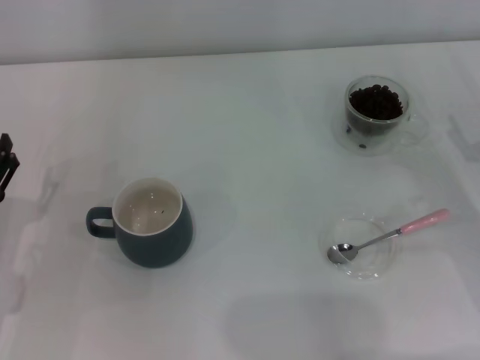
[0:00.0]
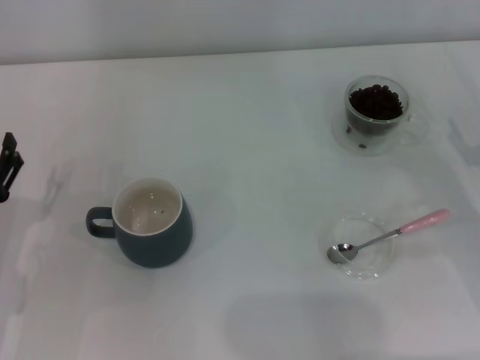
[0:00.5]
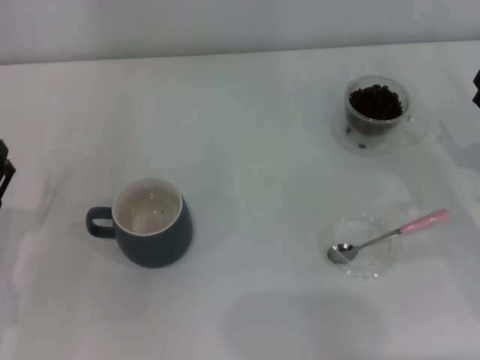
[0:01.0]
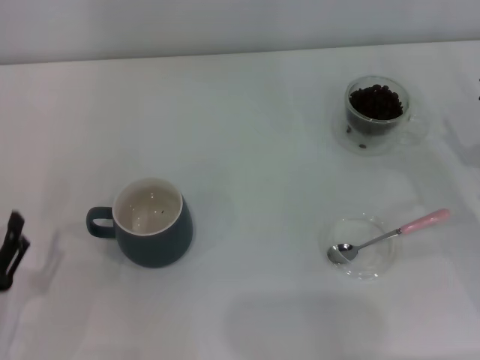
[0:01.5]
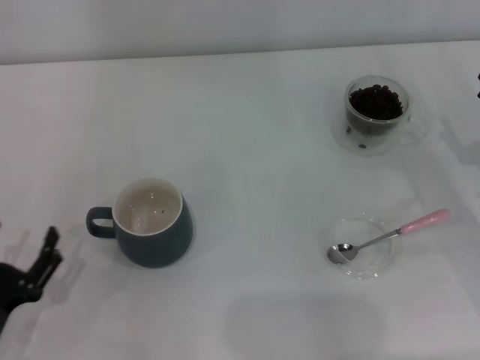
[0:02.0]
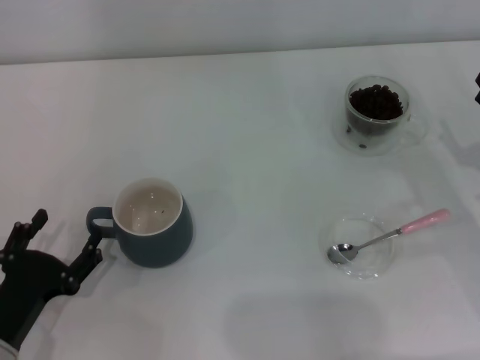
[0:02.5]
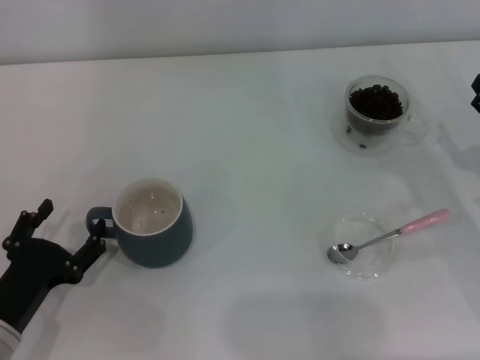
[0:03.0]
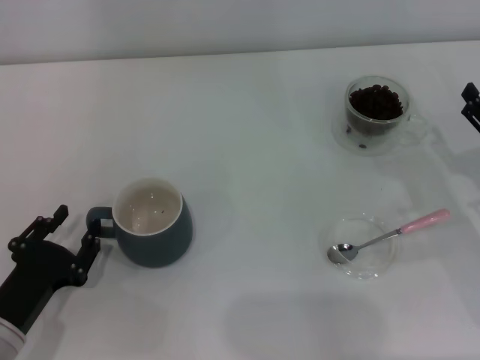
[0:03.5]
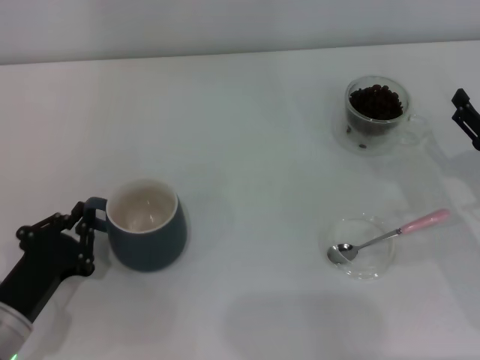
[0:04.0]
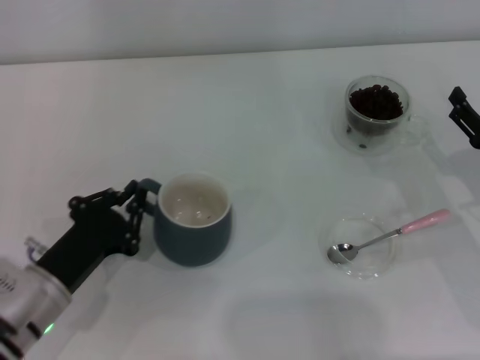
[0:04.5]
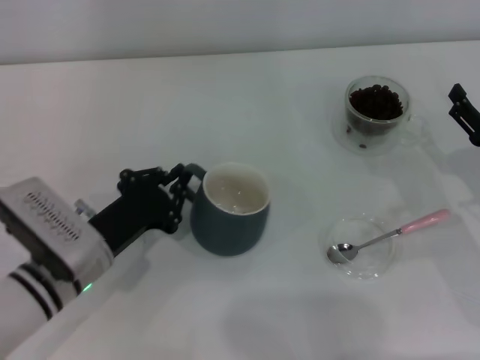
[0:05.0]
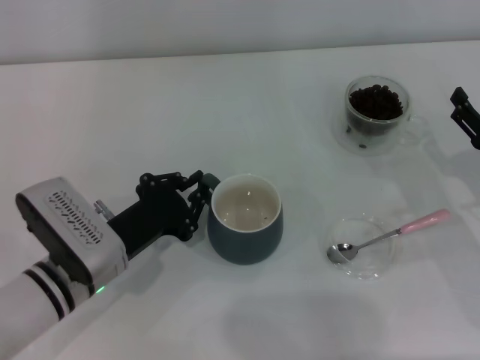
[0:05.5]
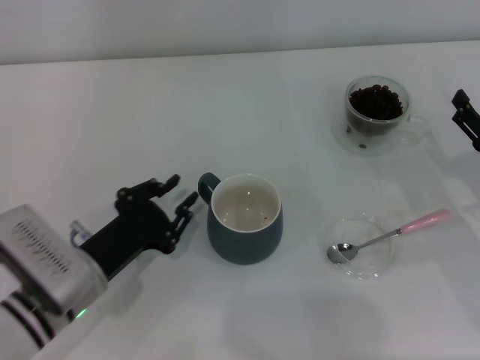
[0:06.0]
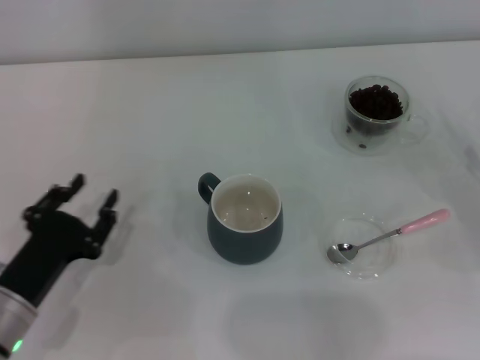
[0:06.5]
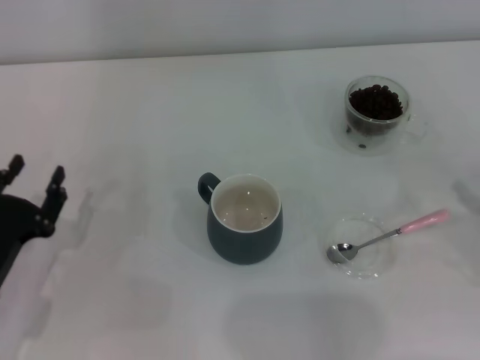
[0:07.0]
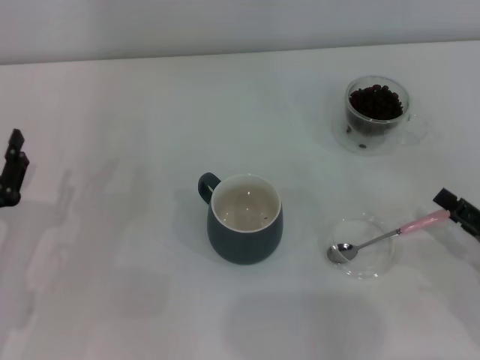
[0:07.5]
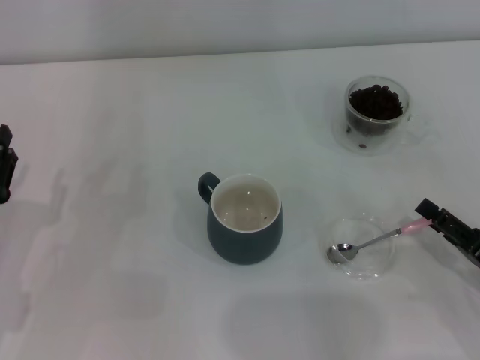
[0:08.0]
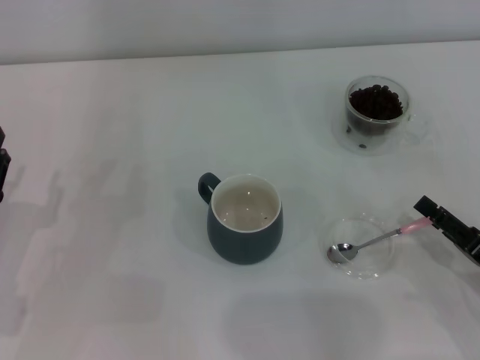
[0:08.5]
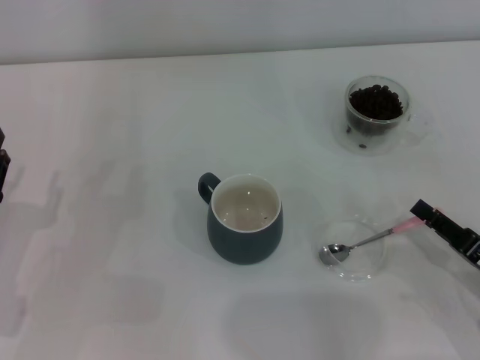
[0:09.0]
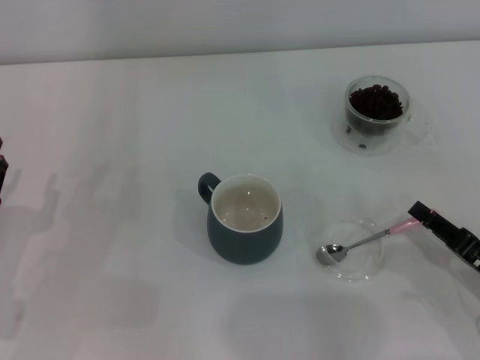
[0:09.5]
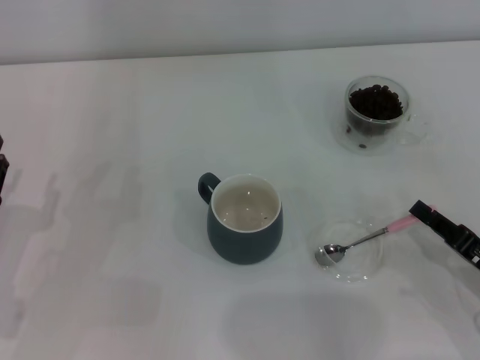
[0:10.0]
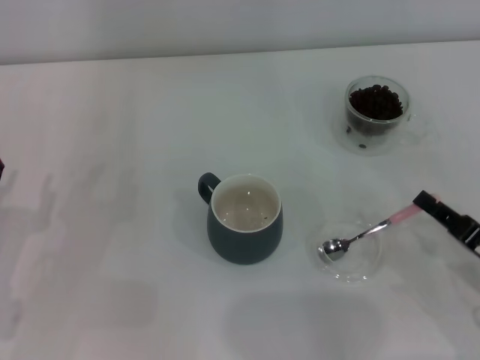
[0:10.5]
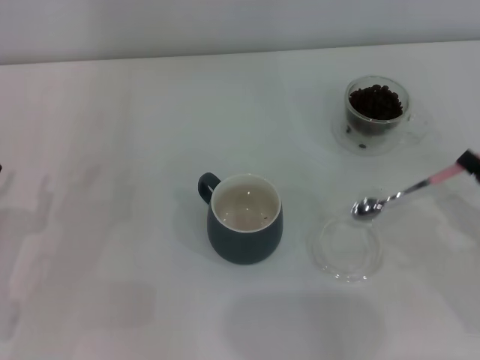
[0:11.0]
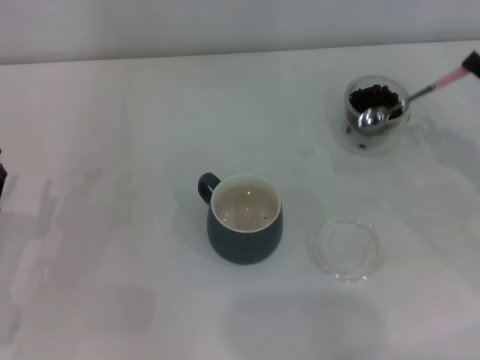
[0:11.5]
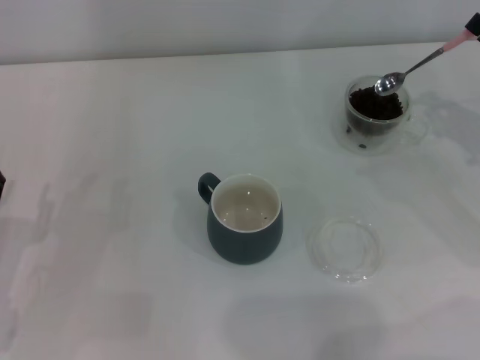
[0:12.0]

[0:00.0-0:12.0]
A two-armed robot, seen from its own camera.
Task of the whole recording: Use a pink spoon to take out the coffee beans from the glass and pour them into the gray cup.
Step, 0:00.0 to 0:05.5: Move the cup to the center of view with the left gripper.
Step, 0:06.5 to 0:10.5: Pick up the spoon with the right gripper.
0:00.0 to 0:02.0: The left gripper shifts approximately 10 cm backward.
0:02.0 to 0:04.0: The left gripper is displaced forward by approximately 5 cm, and closes.
0:04.0 to 0:06.0: The left gripper shifts about 5 cm to the right.
0:06.0 to 0:08.0: The right gripper is displaced backward by roughly 10 cm. The left gripper goes some 10 cm to the left.
0:08.0 to 0:10.0: The right gripper closes.
0:10.0 to 0:12.0: The right gripper is displaced forward, upward and to the right by approximately 20 cm.

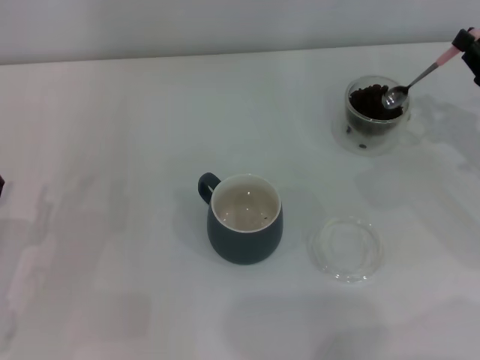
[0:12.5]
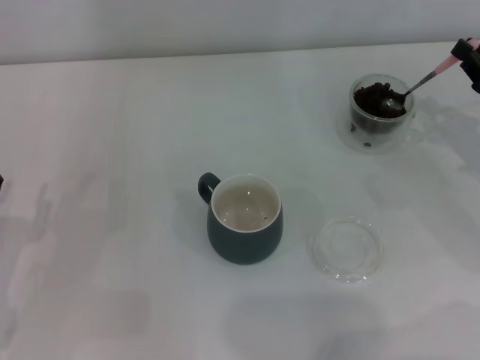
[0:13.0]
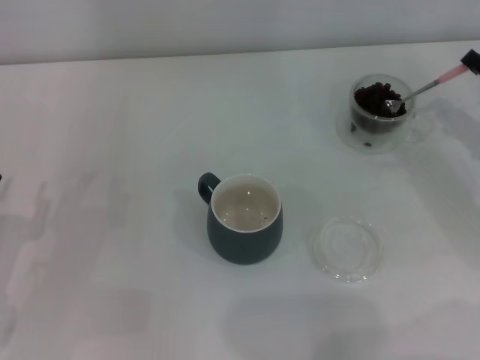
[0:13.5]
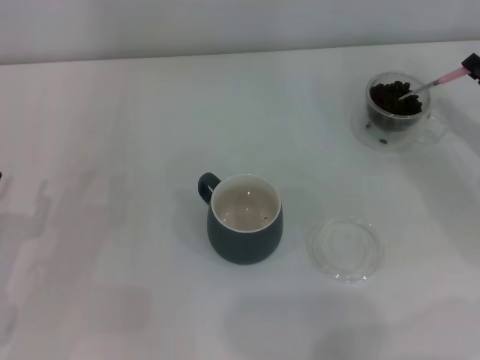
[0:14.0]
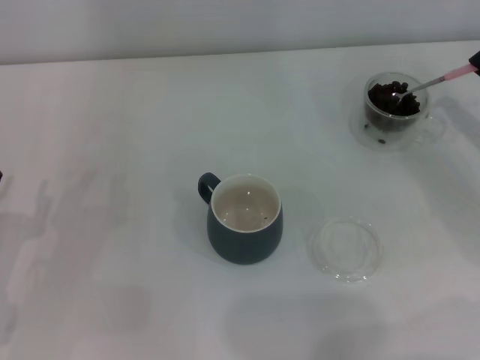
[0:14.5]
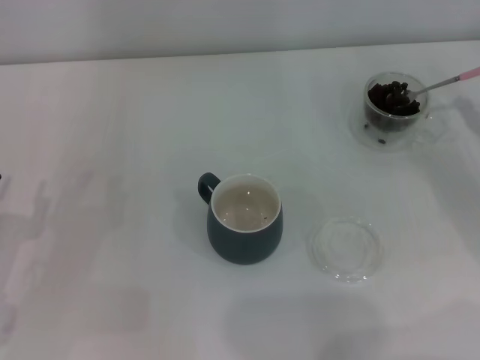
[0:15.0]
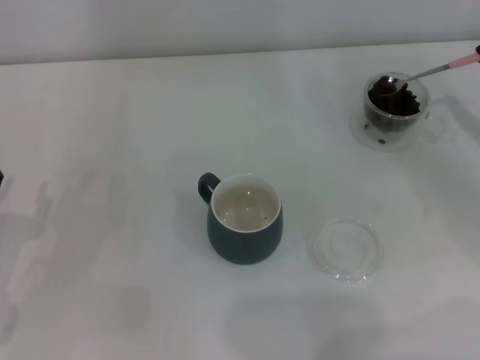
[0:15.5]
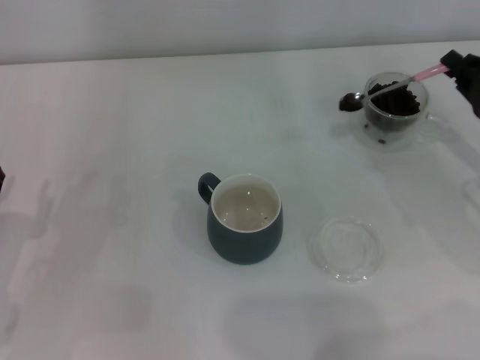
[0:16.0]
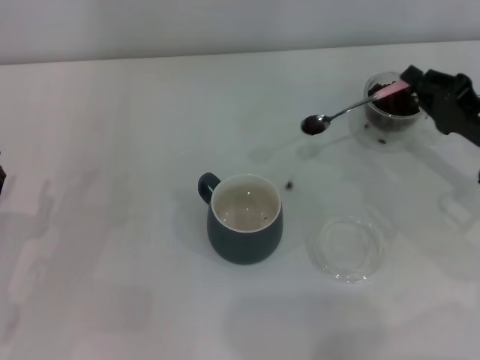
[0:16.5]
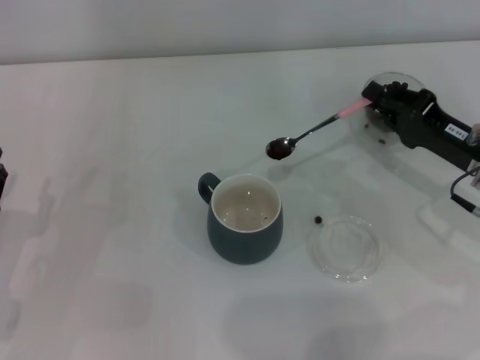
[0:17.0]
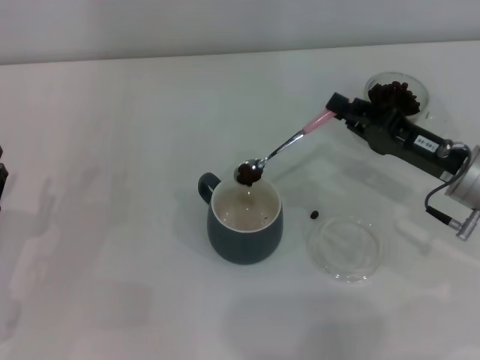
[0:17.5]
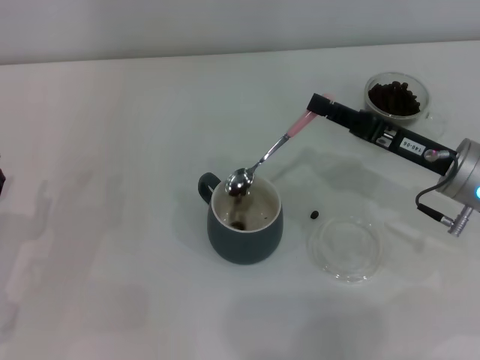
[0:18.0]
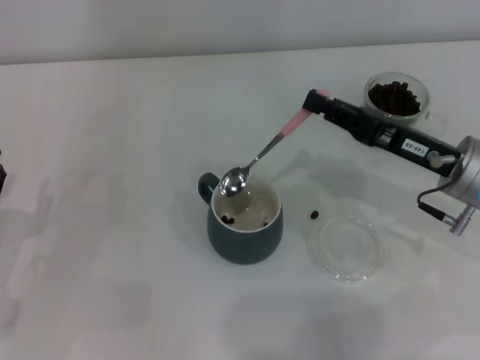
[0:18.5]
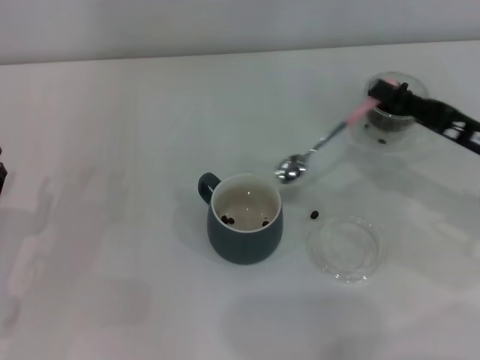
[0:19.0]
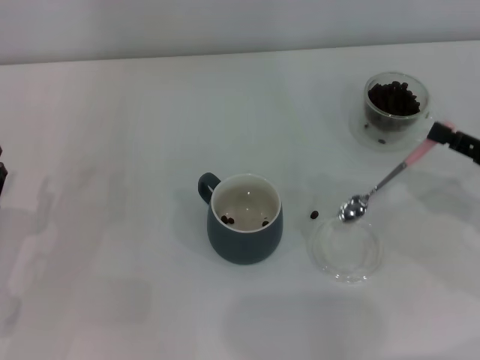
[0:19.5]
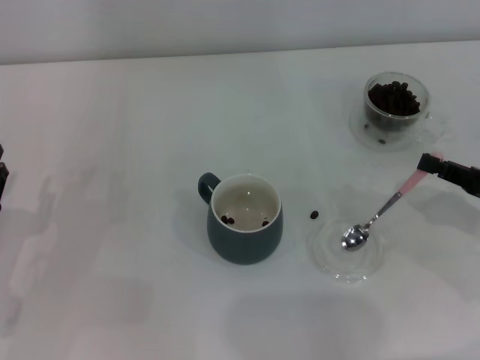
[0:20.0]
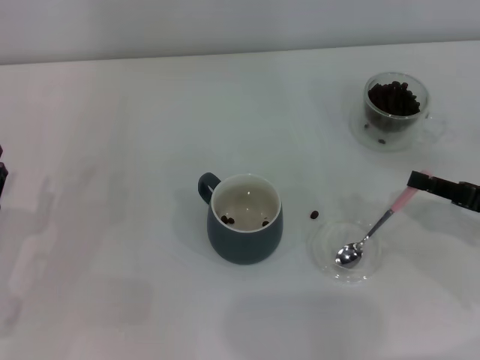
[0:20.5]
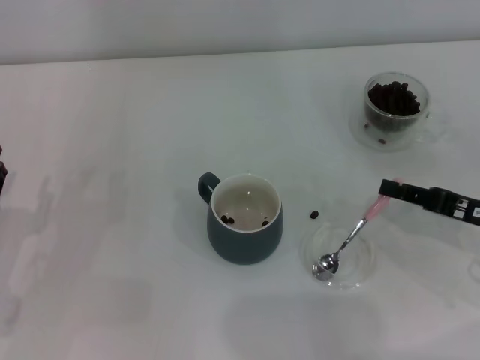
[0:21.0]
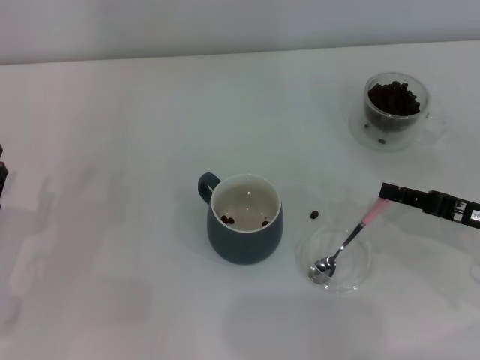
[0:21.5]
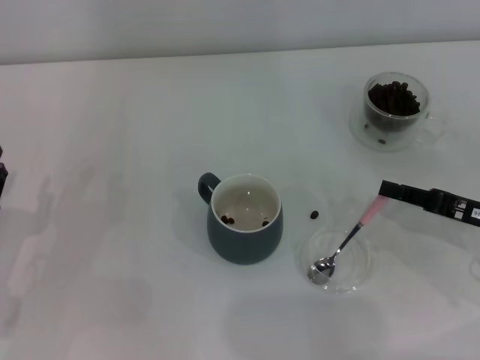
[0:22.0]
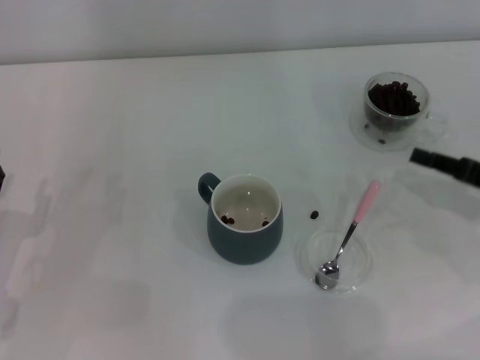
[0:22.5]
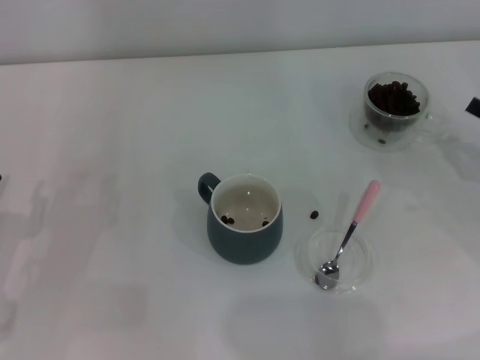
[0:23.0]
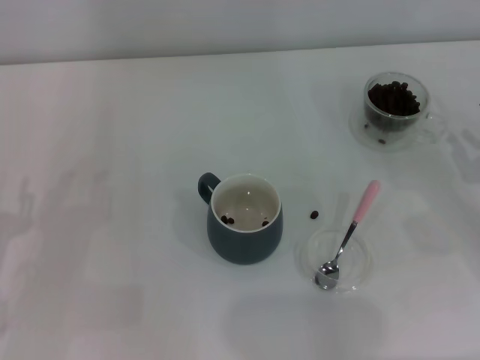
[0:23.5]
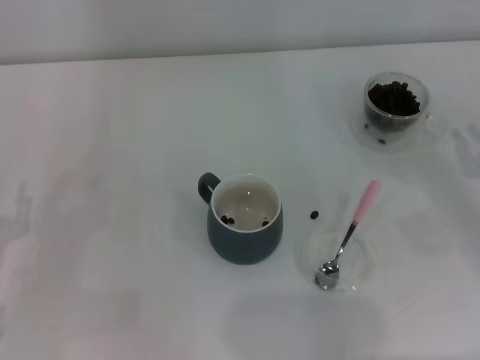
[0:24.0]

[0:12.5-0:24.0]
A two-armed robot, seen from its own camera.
Task of the whole recording: Use a pink spoon to take out the coffee beans from the glass and pour them into the gray cup.
Step, 0:12.5 to 0:18.0: Scoop a spoonful of beans into the cup with the right gripper.
Step, 0:18.5 to 0:22.0: Place the spoon back in its original place with the right gripper.
0:14.5 to 0:16.5: The right gripper travels to the left by some 5 cm.
0:16.5 to 0:18.5: The right gripper goes some 5 cm to the left.
0:18.5 to 0:20.0: The right gripper travels to the right and backward by roughly 10 cm.
0:20.0 to 0:22.0: The grippers make only small movements.
